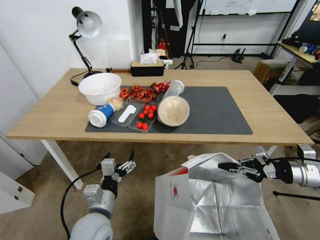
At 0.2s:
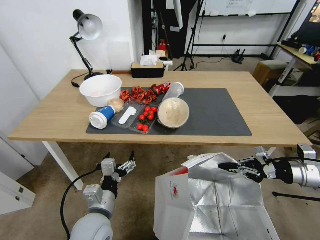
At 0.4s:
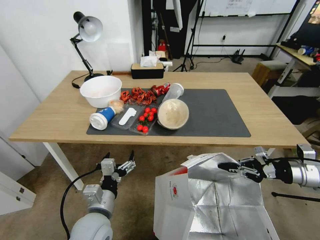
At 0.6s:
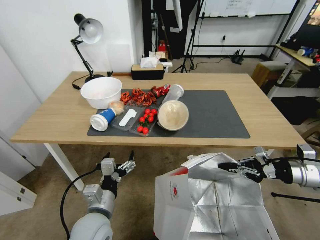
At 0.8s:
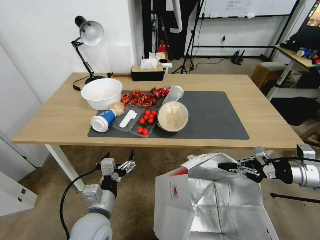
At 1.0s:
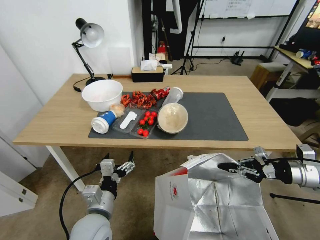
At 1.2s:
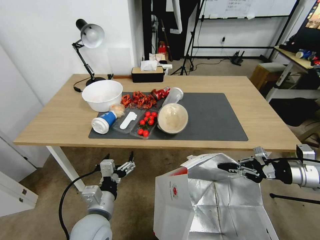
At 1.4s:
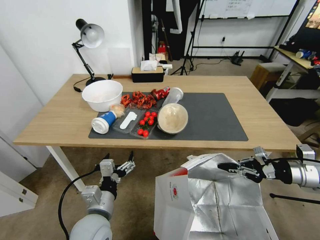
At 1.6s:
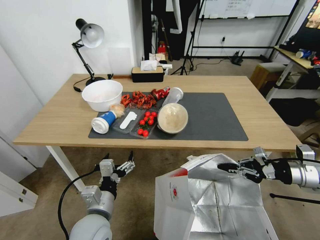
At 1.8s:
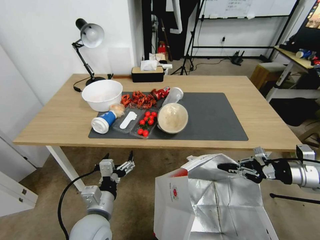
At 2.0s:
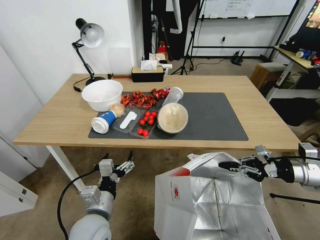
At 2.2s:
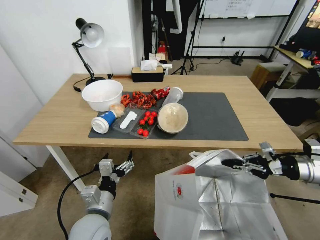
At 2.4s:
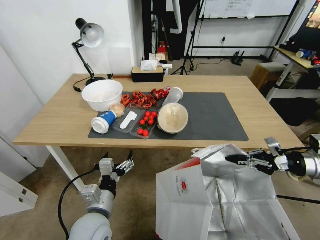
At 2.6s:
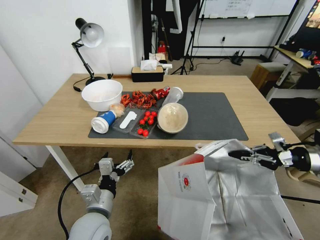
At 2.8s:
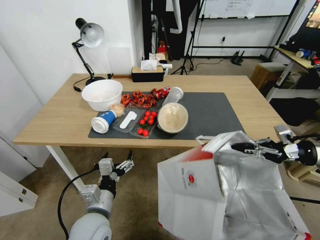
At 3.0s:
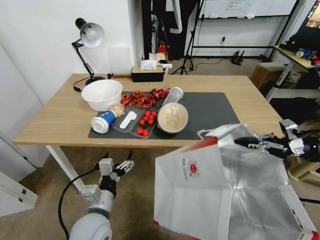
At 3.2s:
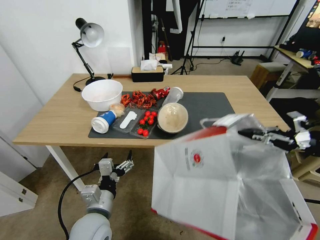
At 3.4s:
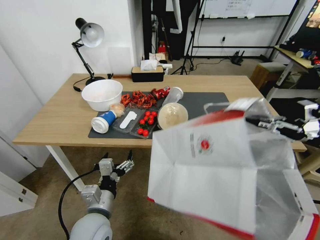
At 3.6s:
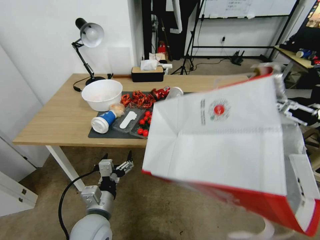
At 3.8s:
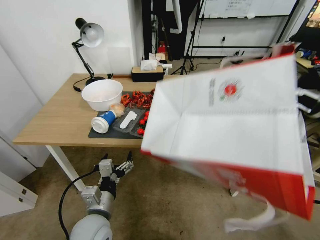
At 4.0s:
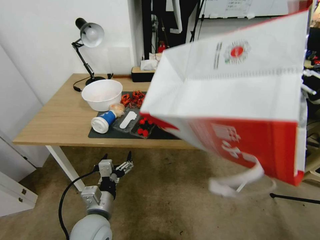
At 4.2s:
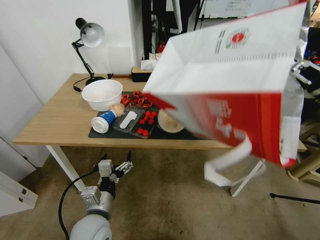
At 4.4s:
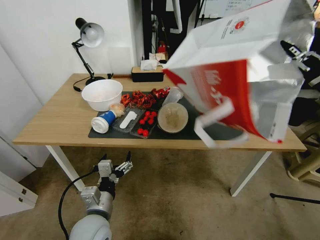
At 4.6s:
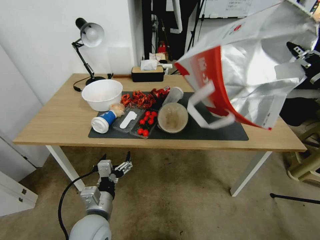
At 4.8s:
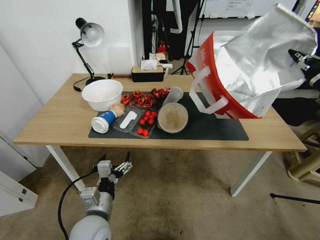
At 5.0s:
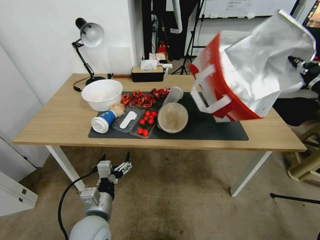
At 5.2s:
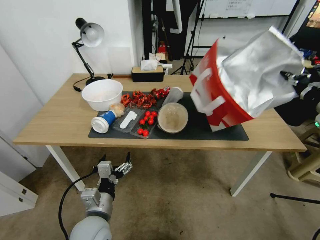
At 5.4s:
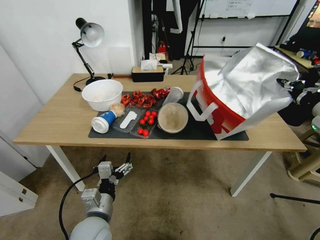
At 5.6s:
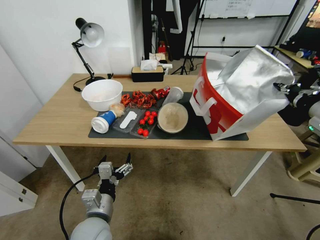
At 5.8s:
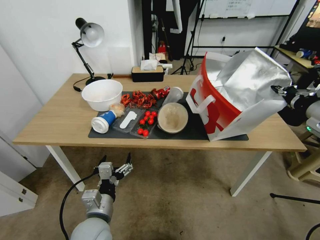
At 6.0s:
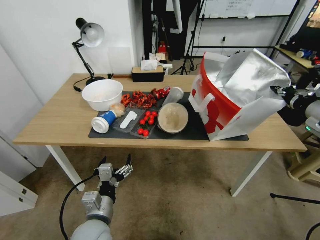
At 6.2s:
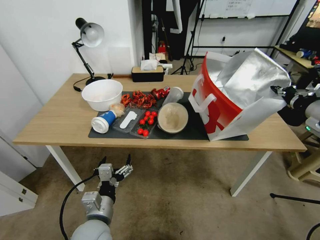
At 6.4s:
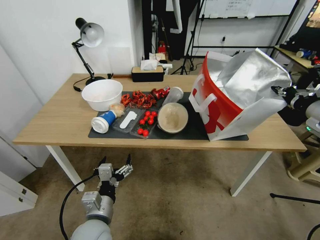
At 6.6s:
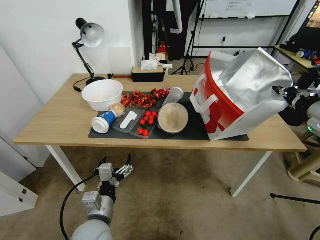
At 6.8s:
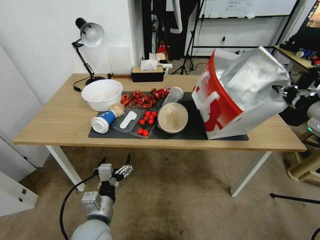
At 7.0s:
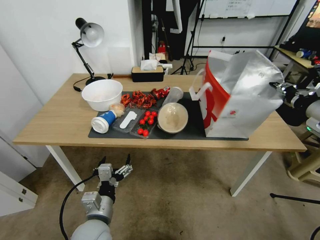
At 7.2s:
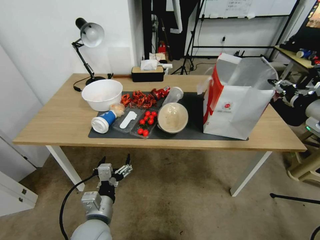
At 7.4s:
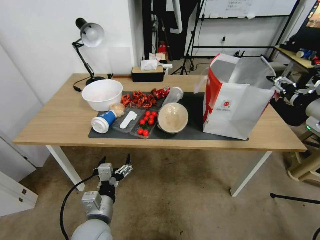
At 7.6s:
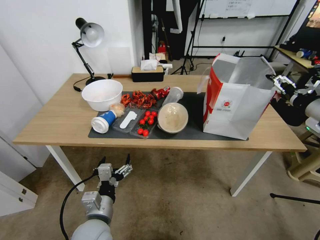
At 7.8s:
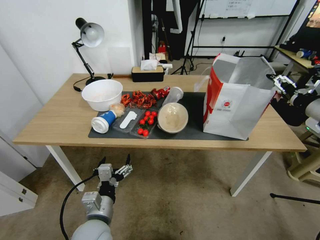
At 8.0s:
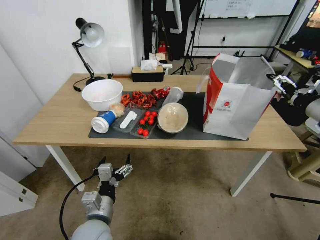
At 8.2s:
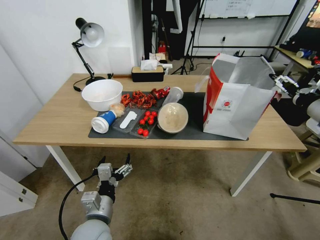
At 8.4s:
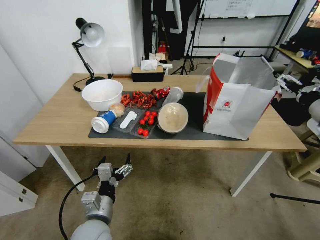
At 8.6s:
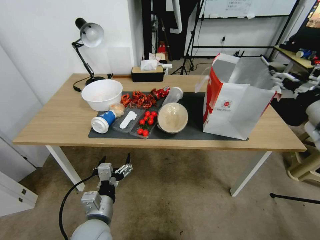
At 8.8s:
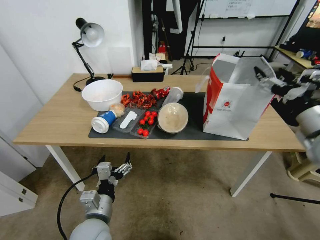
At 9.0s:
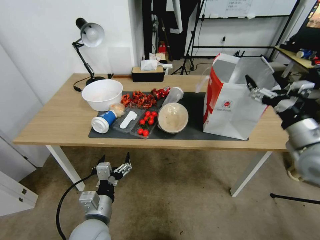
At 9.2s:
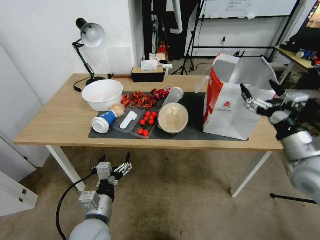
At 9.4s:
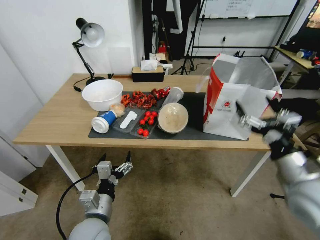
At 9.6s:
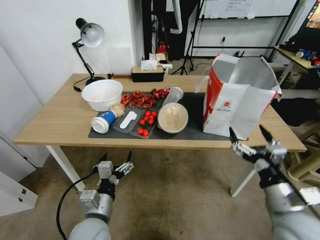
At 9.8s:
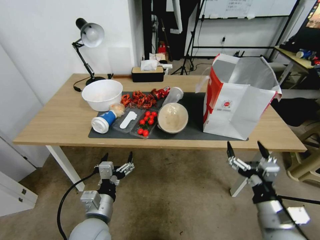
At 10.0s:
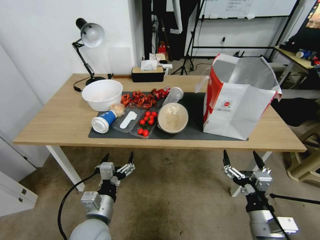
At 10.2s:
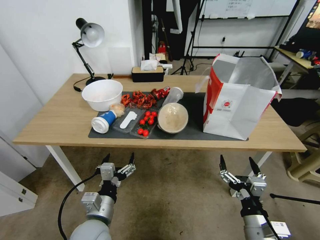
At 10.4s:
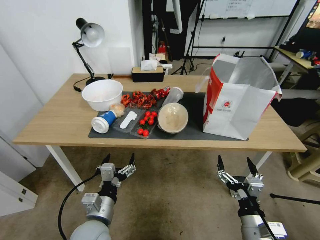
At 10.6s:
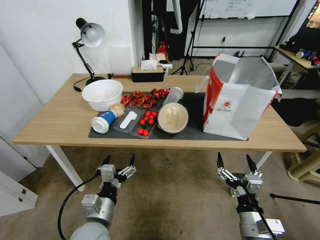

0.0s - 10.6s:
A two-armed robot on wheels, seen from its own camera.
Task of the whole recording: Pick up the food delivery bag from the floor and place it on the table.
1.6s - 3.0s: The right gripper travels upward by about 5 cm.
3.0s - 4.6s: The right gripper travels upward and to the left by some 10 cm.
6.0s - 7.6s: The right gripper opens.
7.6s - 9.0s: The right gripper goes about 10 cm to the left, backward and downward.
9.0s - 10.6s: The right gripper shifts roughly 30 cm downward, backward and to the left.

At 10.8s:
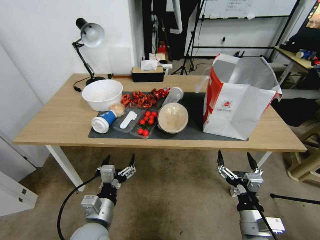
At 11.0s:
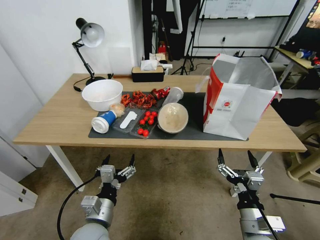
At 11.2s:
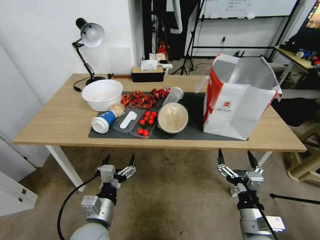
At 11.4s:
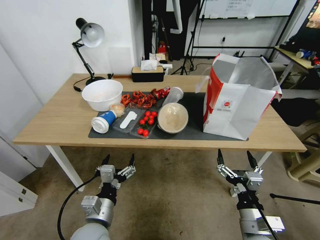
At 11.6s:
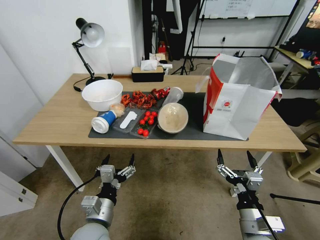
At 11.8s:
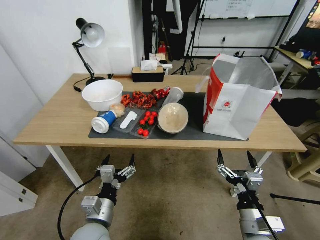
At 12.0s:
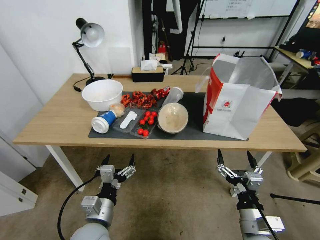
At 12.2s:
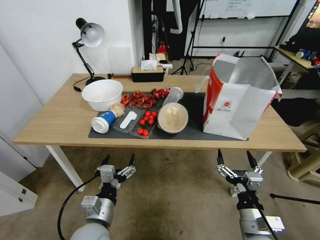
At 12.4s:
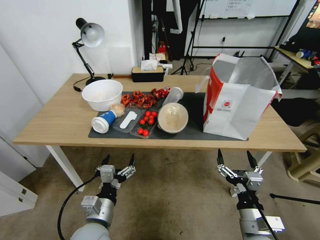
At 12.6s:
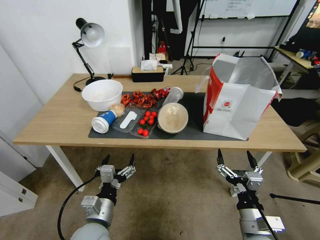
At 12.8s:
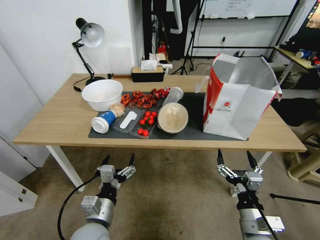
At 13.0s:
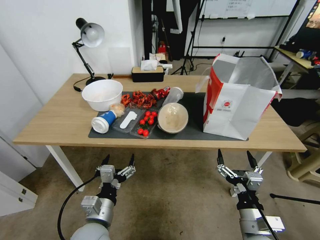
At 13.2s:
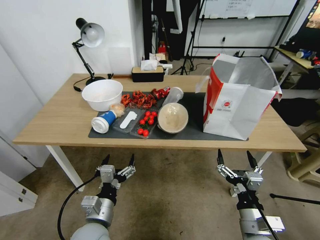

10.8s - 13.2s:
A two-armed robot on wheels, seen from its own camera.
Task of the whole recording: Pick up the food delivery bag from the floor and place it on the table.
10.8s - 13.2s: Both grippers stay about where they are.
